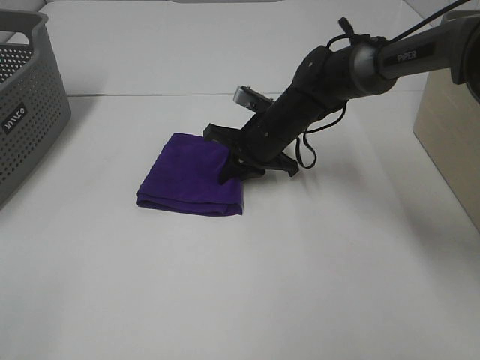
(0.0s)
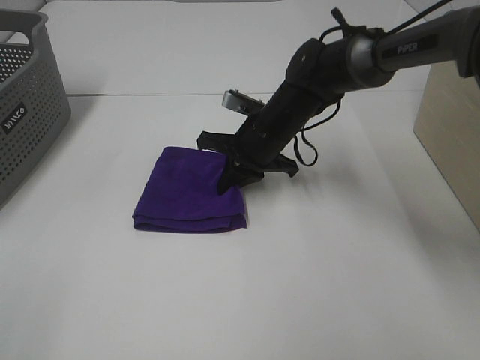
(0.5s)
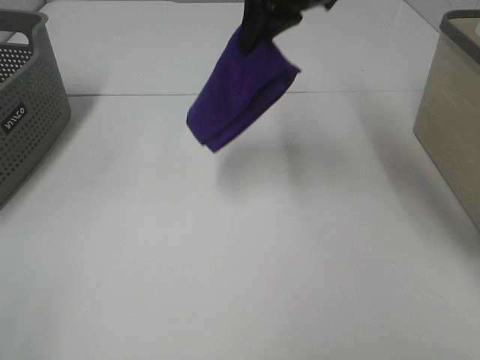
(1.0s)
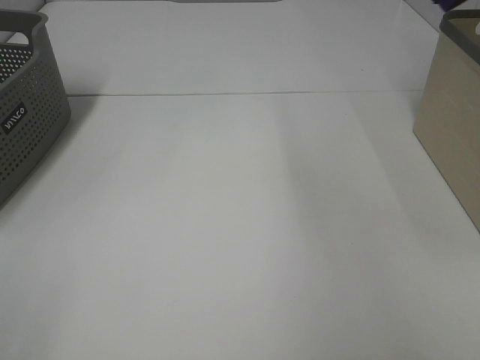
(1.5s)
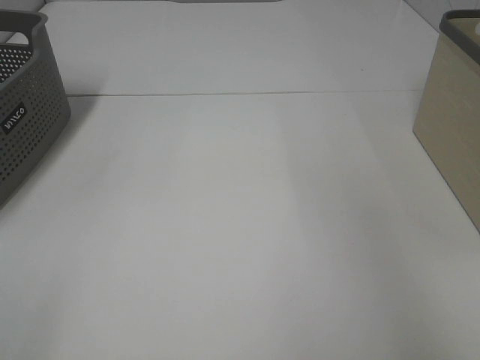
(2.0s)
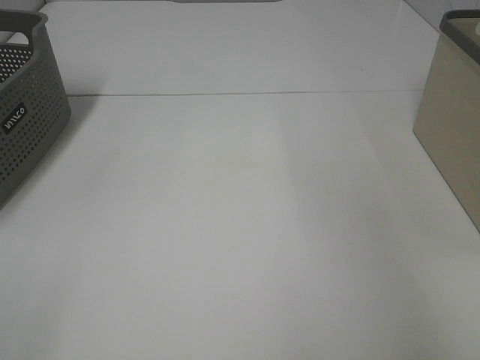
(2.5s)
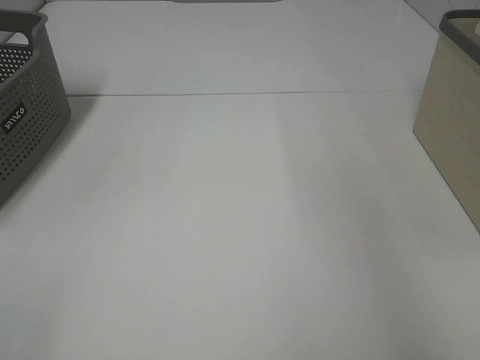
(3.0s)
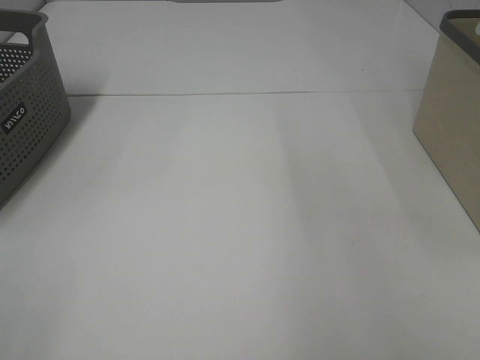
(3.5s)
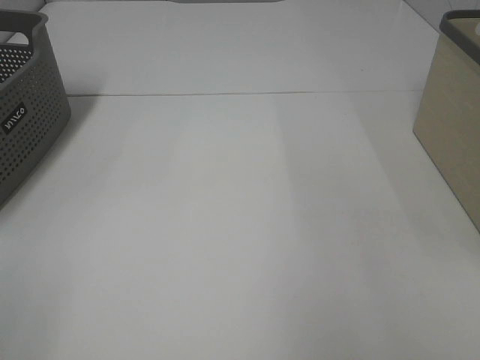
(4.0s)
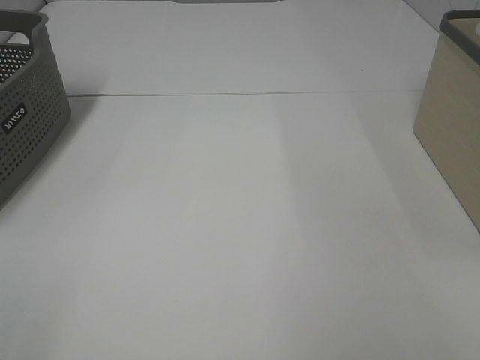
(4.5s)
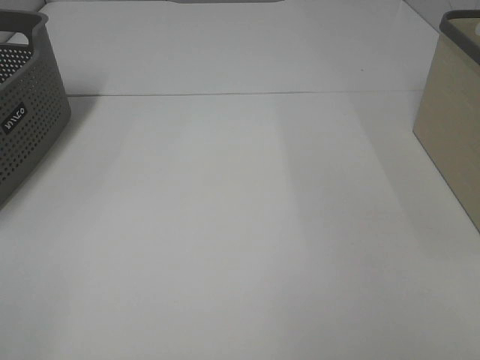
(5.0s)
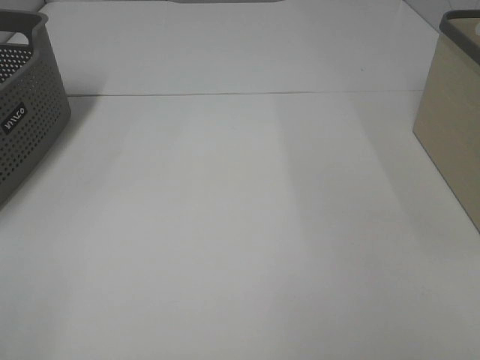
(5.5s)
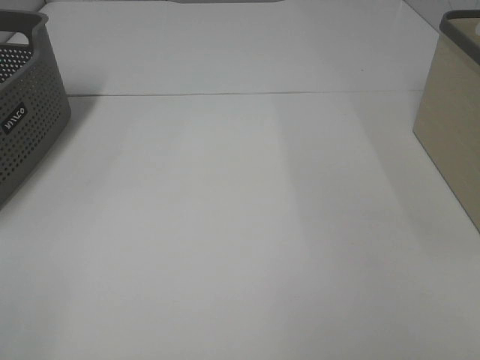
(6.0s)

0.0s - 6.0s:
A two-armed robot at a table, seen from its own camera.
Step, 0.5s - 2.5s: Right hand: place the purple towel in right basket.
0.0s - 2.0s: The right gripper moves to the right and upward, about 50 cm.

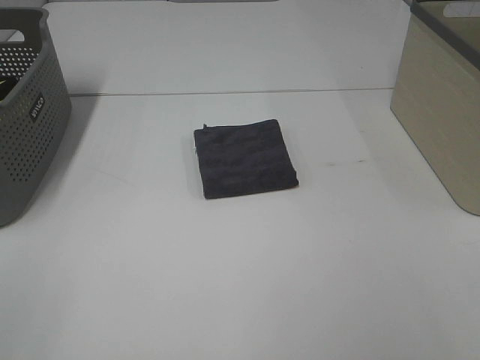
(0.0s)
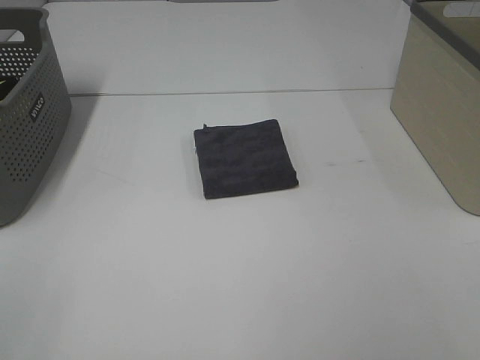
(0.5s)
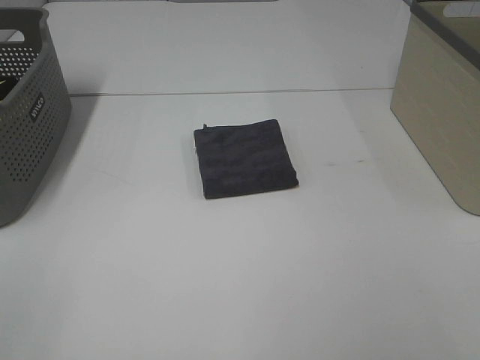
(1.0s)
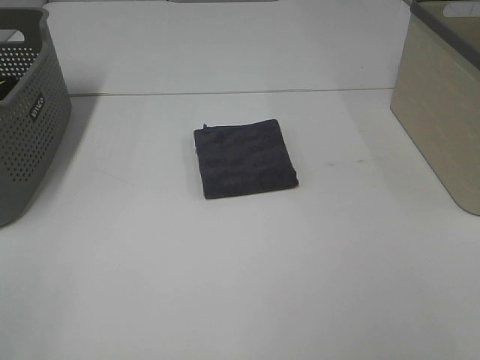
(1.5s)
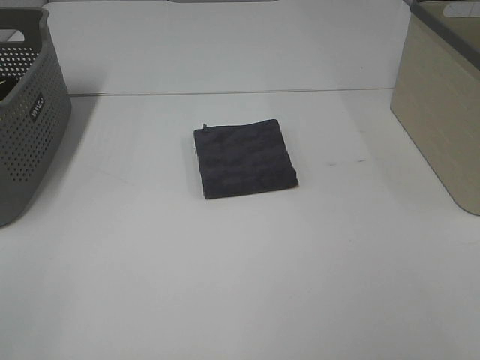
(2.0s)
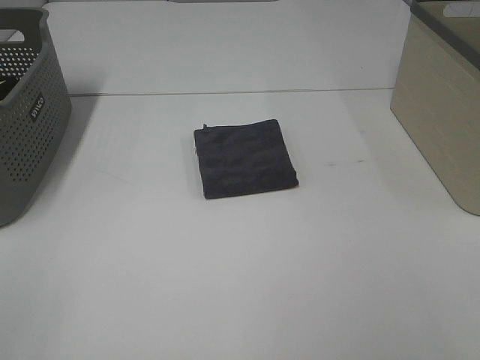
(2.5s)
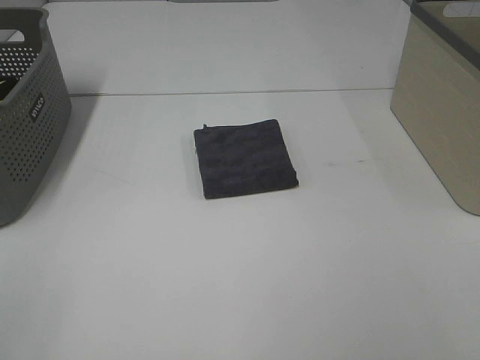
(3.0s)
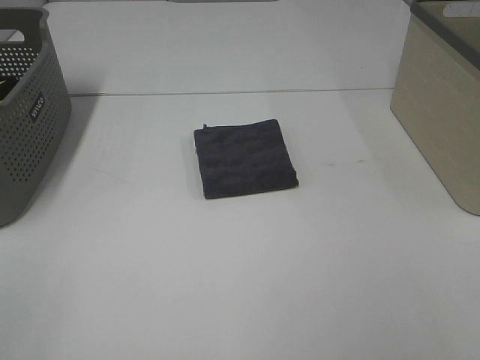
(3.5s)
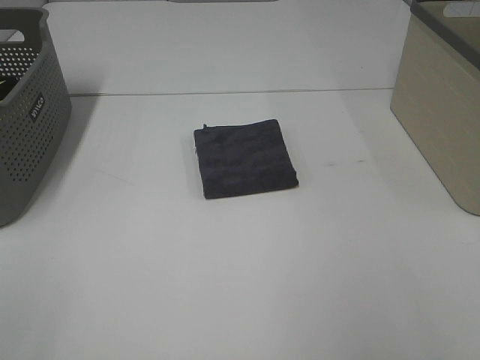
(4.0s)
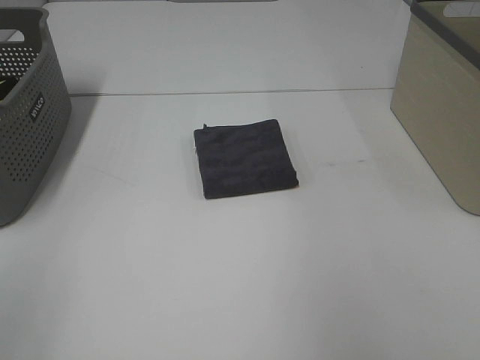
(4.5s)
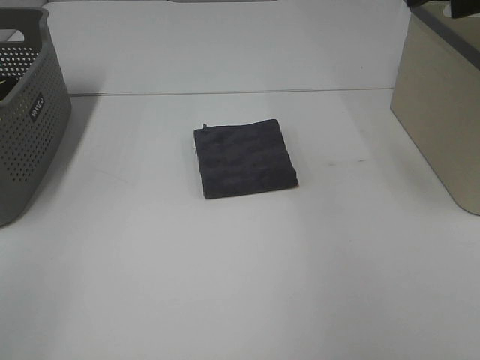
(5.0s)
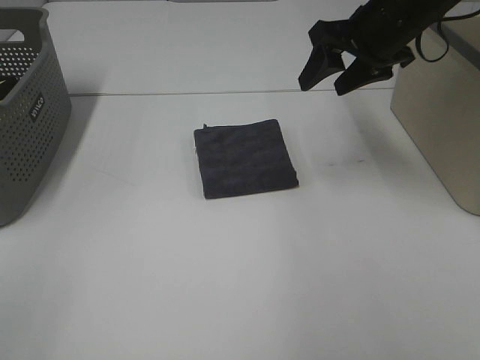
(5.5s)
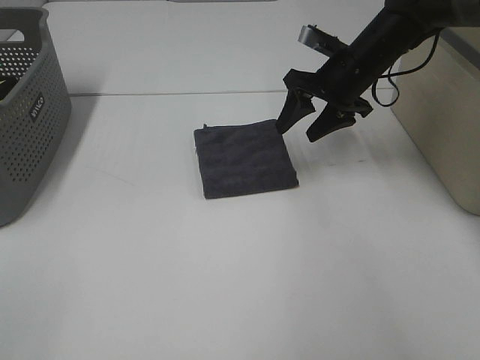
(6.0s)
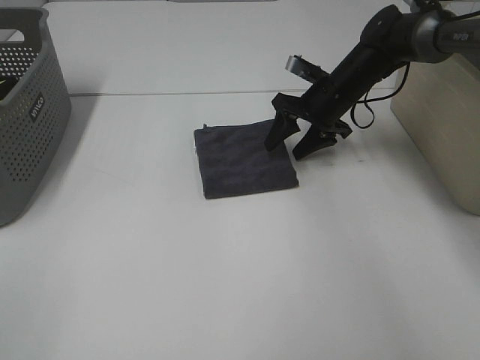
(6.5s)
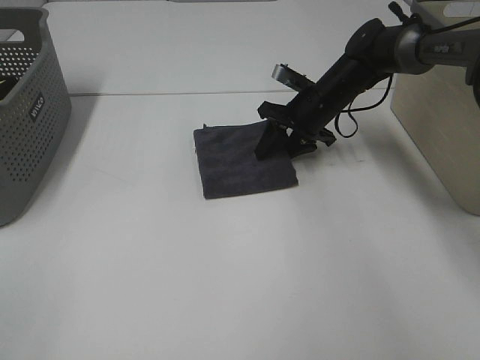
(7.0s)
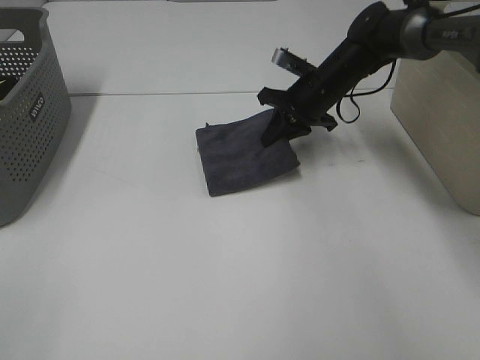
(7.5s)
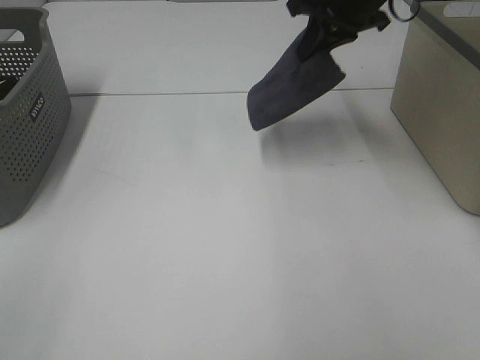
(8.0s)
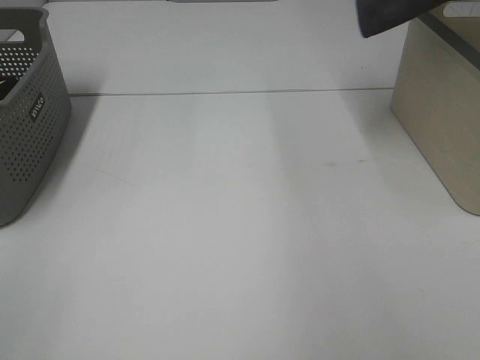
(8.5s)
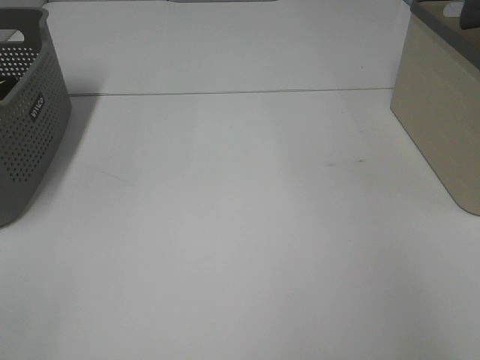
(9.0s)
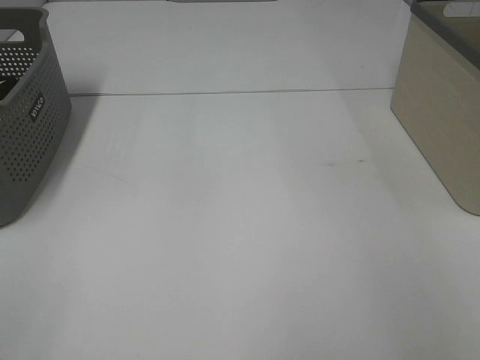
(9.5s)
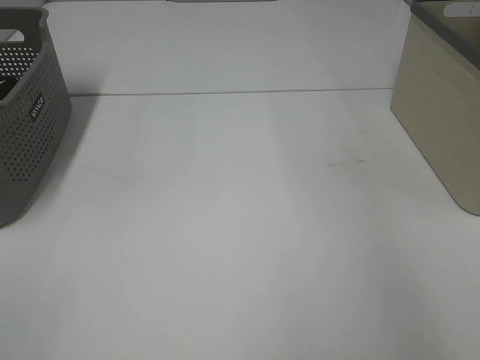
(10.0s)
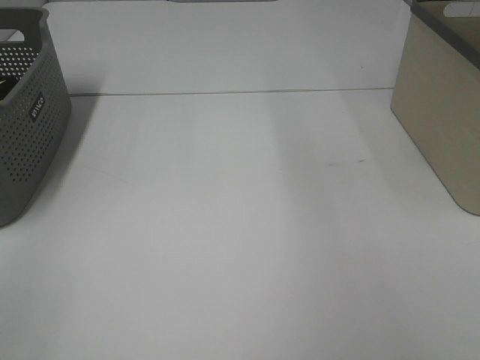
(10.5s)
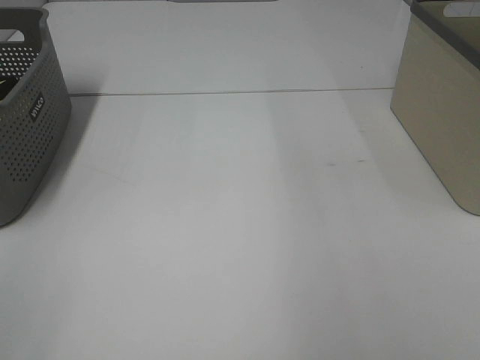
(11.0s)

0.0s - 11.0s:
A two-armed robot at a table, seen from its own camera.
Step, 0.0s - 7.0s: Right hand: grab the folded grey towel.
Step, 7.5s - 9.5s: Right hand: place the grey towel in right basket.
0.0s - 3.5s: Neither gripper changes place.
3.5s - 5.5s: The right gripper moves forward, about 40 cm.
5.5s - 7.5s: The right gripper moves downward and forward, roughly 15 cm, and closes.
7.5s - 9.0s: The right gripper shifts some 40 cm to the right and upward.

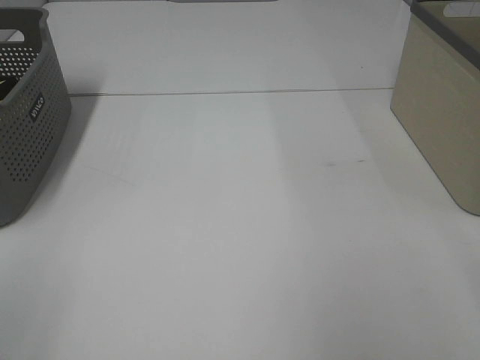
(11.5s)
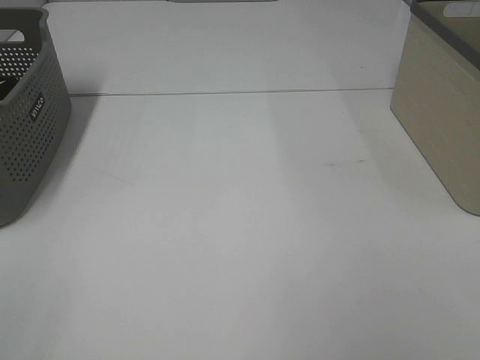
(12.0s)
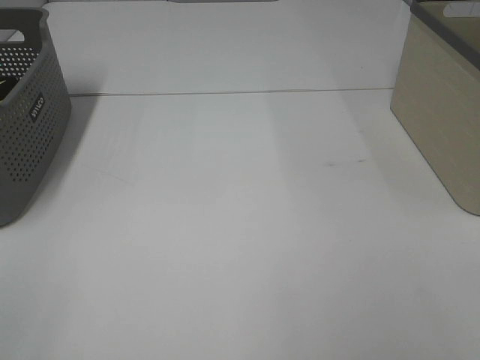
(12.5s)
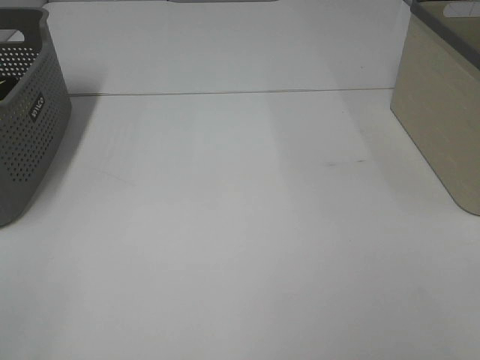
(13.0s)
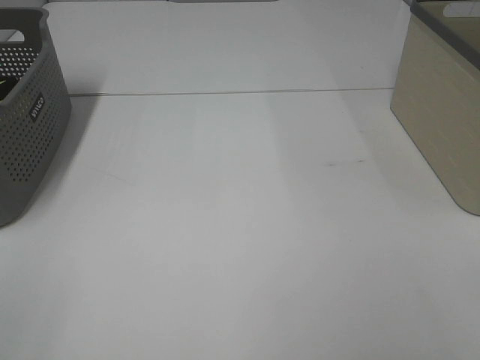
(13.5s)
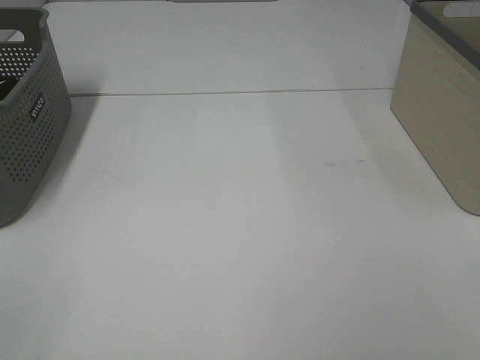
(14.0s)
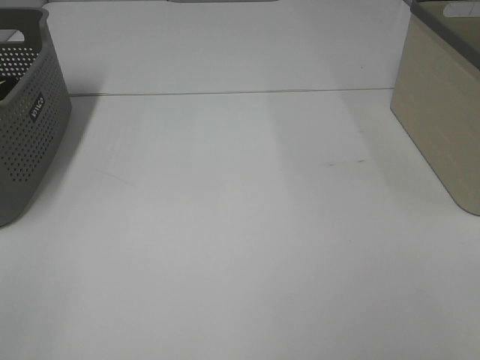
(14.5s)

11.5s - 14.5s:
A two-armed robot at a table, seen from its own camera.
13.0s - 14.5s: Both grippers stay about where they are.

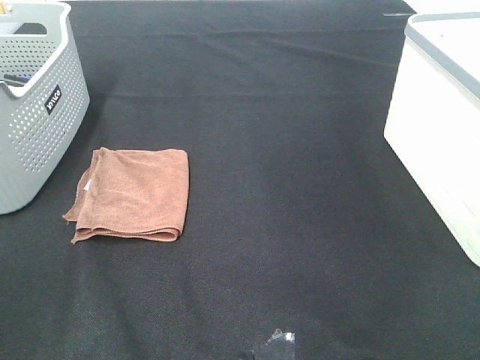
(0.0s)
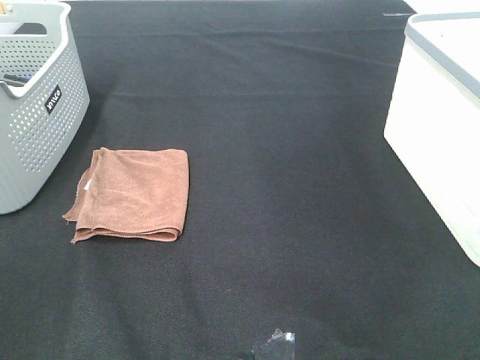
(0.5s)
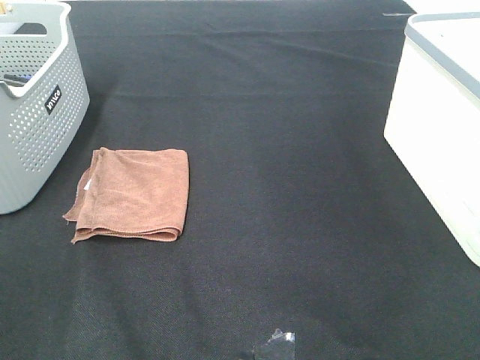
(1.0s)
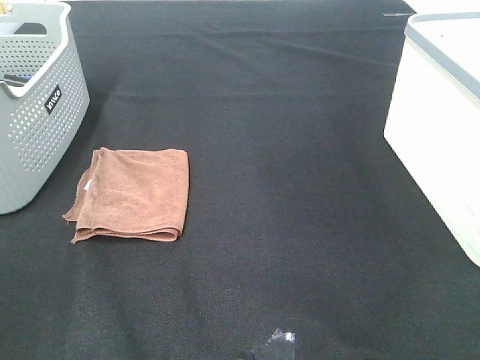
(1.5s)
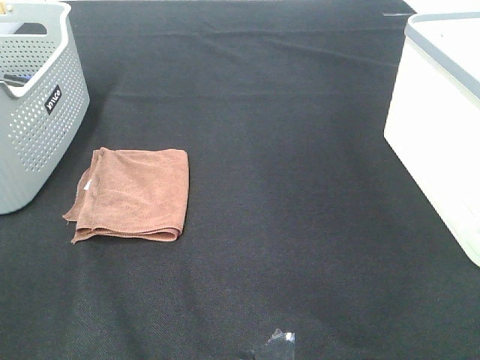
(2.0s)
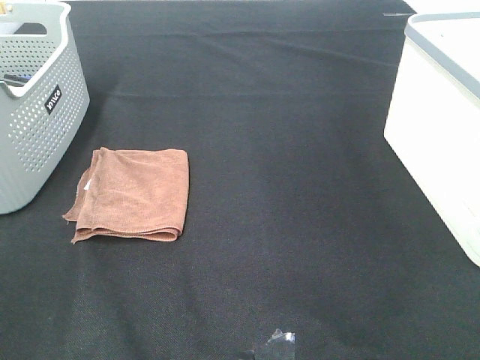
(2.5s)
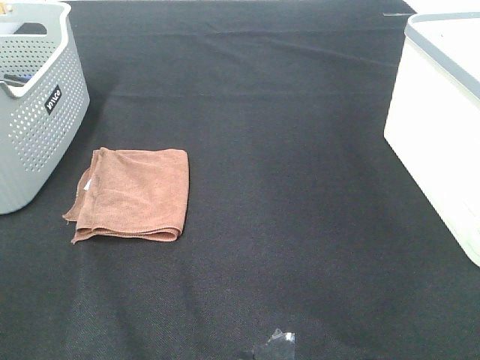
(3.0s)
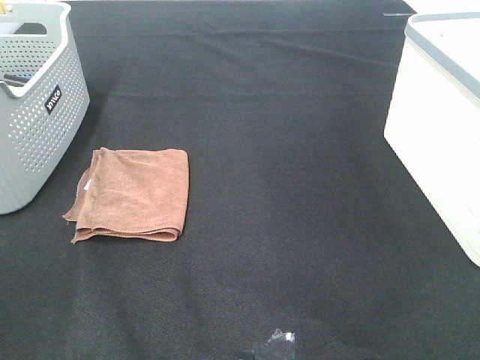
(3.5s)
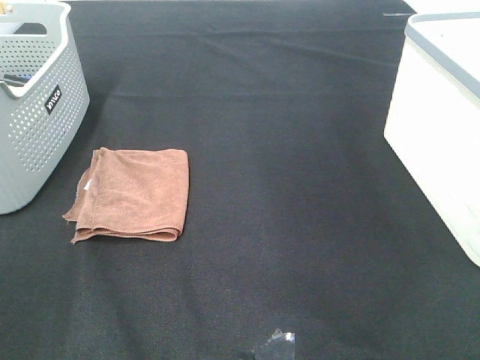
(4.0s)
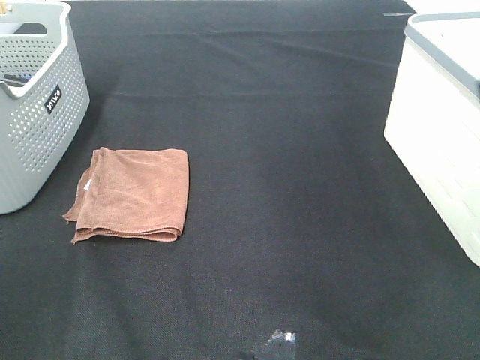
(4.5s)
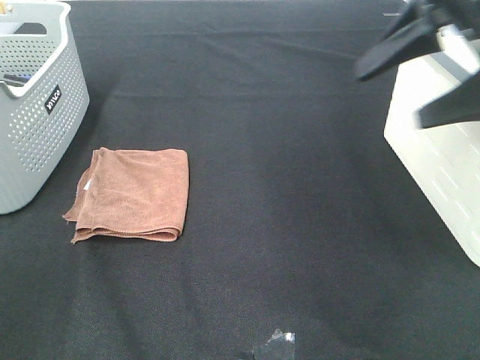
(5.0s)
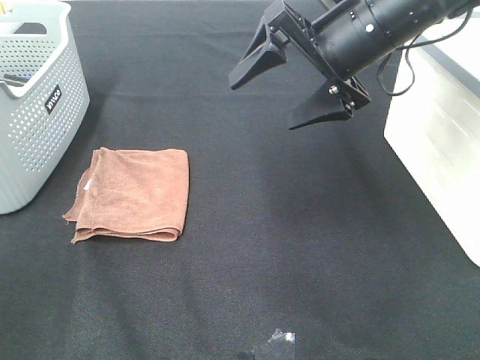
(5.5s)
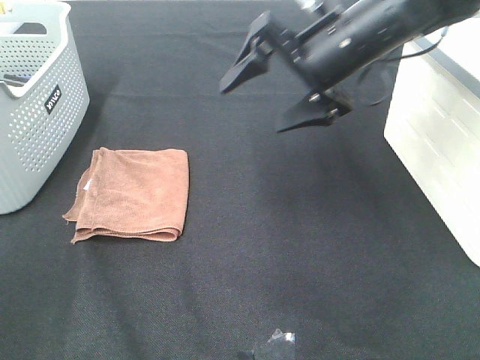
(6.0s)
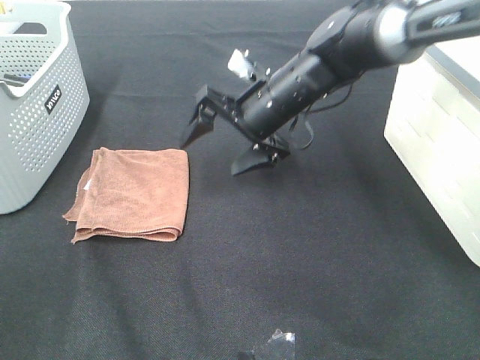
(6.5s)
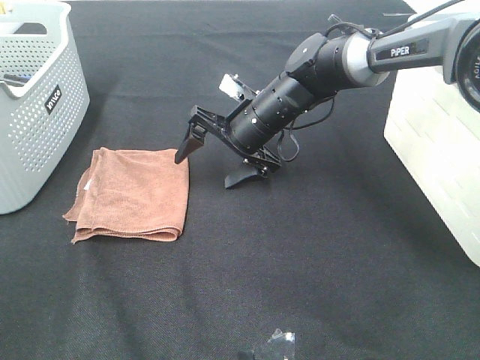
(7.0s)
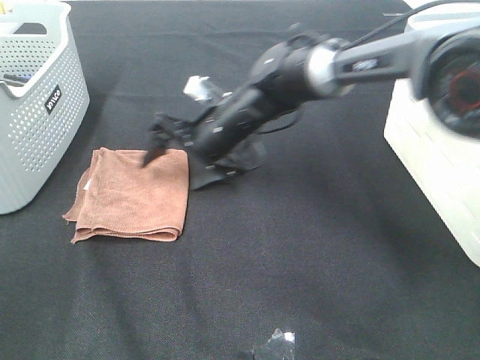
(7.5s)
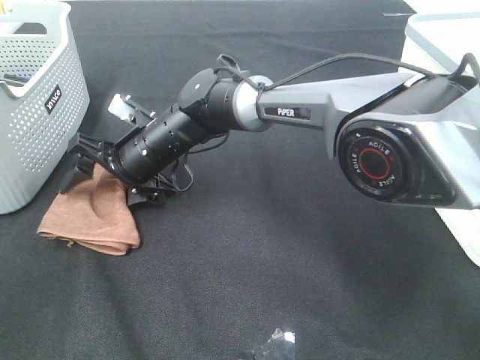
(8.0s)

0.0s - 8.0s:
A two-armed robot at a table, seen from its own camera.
0.0s - 2.0s: Neither gripper changes place.
4.0s - 6.0s: The right gripper is displaced forward, to the left and downward by approximately 35 cm.
6.0s - 8.0s: The right gripper moves to the left and downward, roughly 25 cm.
